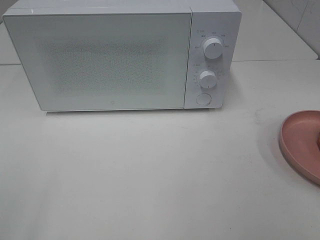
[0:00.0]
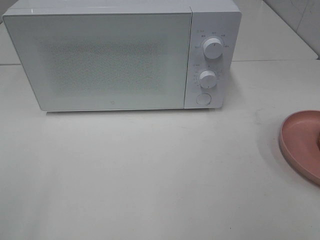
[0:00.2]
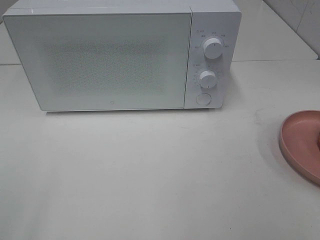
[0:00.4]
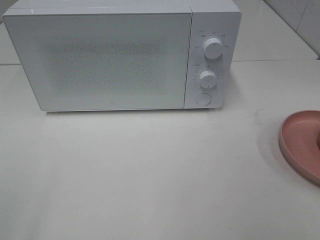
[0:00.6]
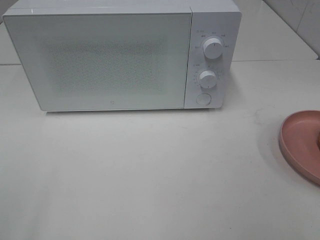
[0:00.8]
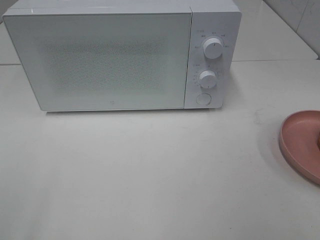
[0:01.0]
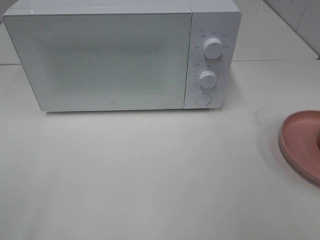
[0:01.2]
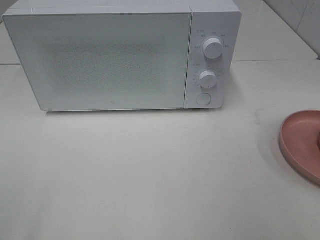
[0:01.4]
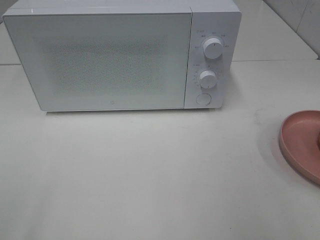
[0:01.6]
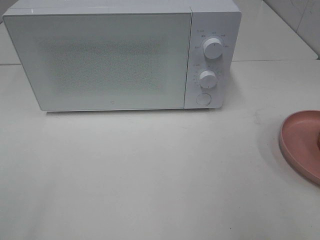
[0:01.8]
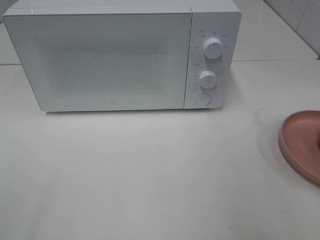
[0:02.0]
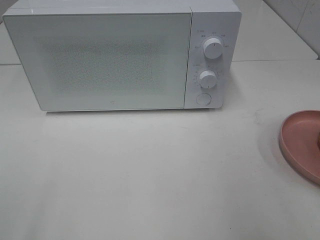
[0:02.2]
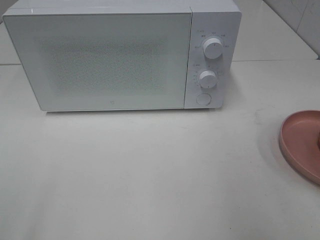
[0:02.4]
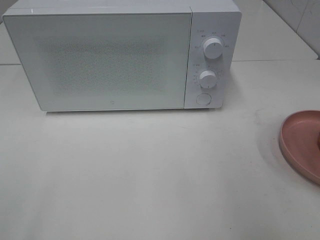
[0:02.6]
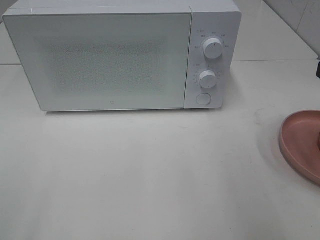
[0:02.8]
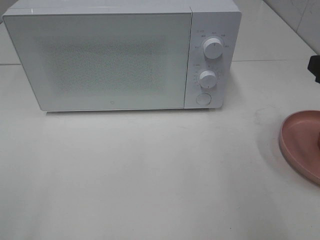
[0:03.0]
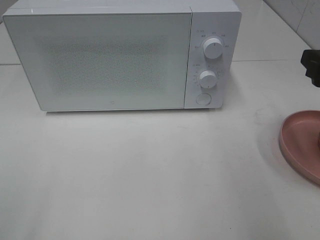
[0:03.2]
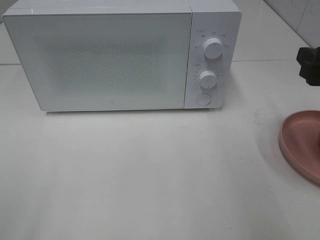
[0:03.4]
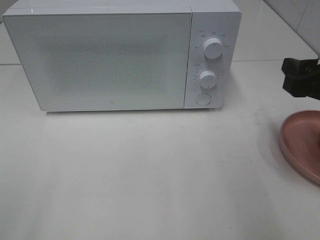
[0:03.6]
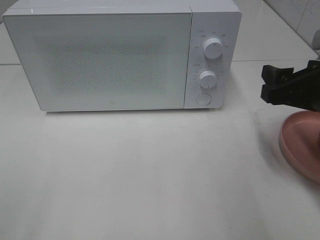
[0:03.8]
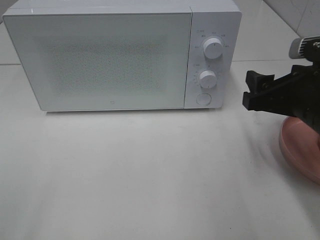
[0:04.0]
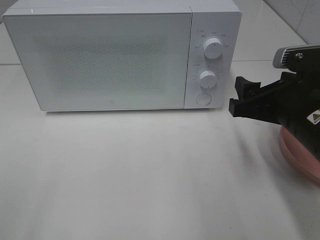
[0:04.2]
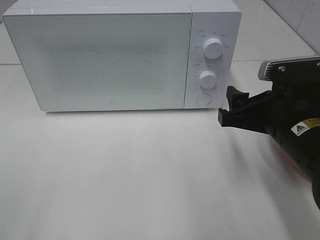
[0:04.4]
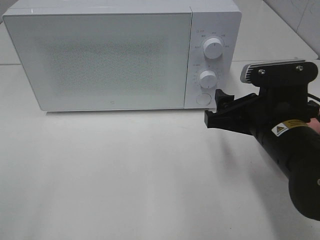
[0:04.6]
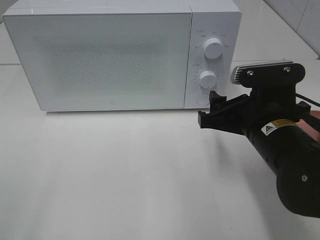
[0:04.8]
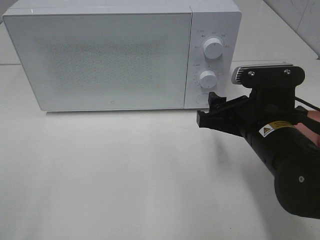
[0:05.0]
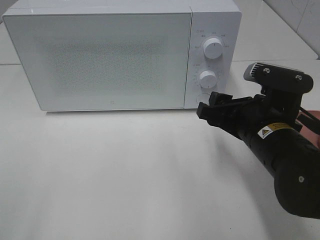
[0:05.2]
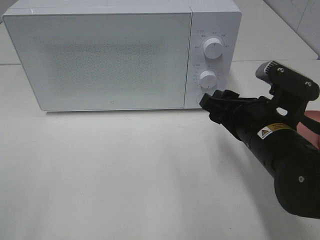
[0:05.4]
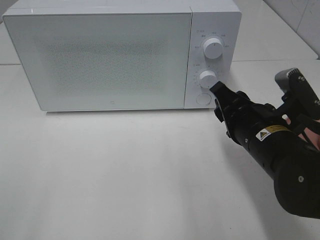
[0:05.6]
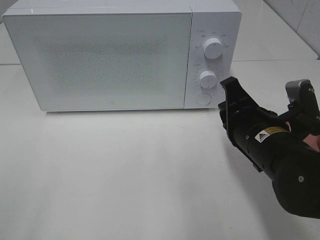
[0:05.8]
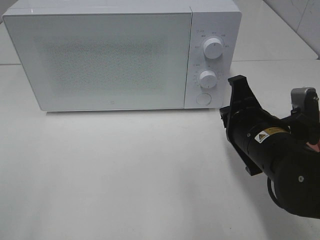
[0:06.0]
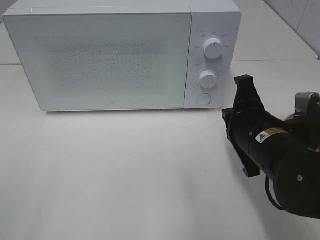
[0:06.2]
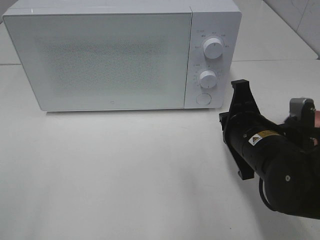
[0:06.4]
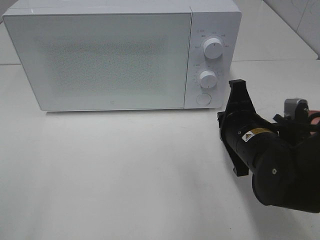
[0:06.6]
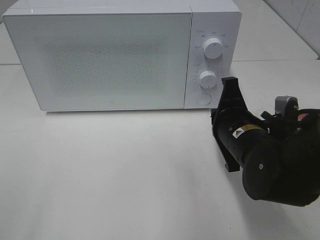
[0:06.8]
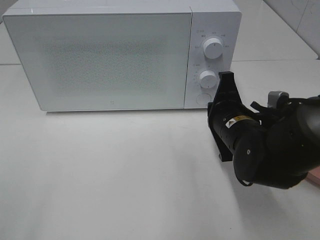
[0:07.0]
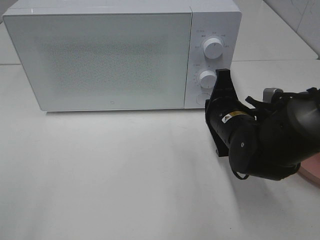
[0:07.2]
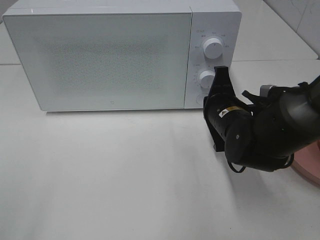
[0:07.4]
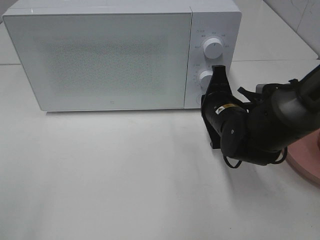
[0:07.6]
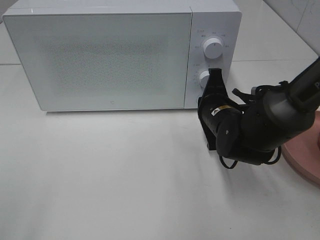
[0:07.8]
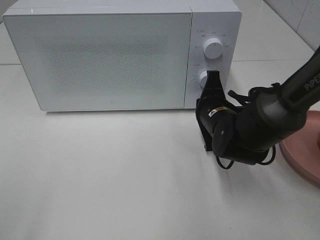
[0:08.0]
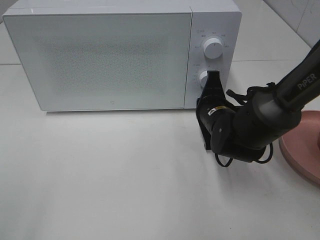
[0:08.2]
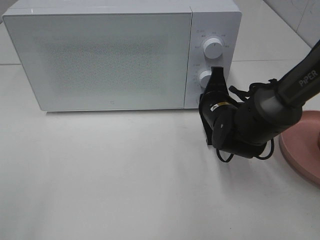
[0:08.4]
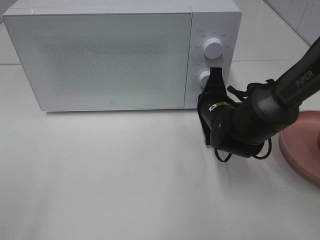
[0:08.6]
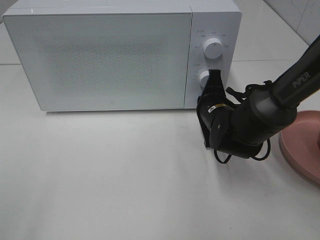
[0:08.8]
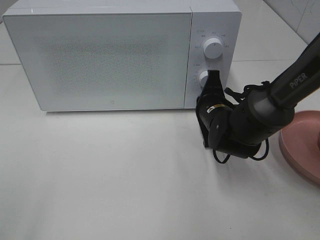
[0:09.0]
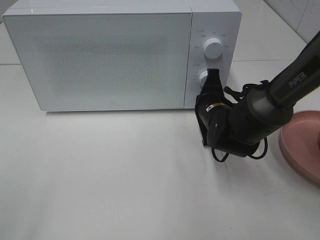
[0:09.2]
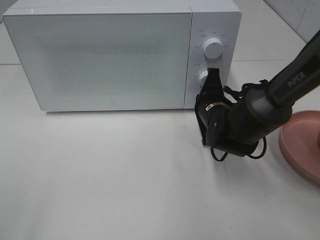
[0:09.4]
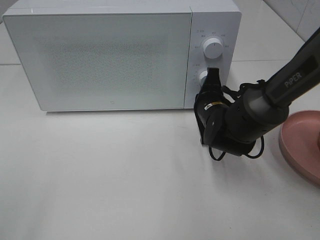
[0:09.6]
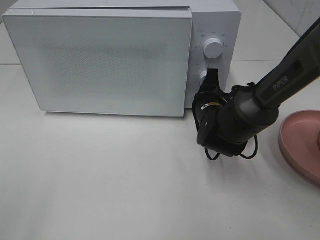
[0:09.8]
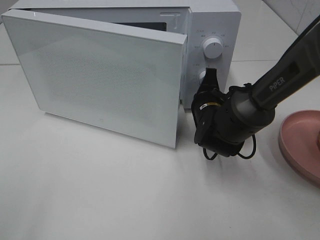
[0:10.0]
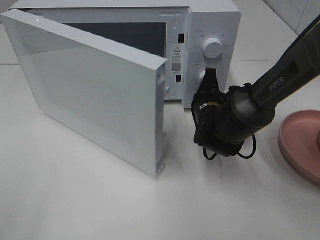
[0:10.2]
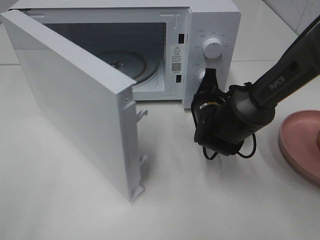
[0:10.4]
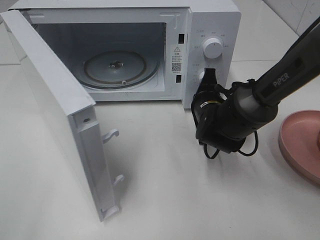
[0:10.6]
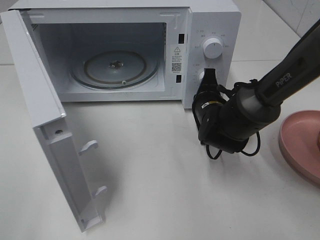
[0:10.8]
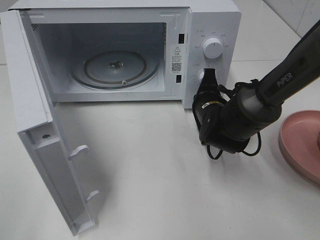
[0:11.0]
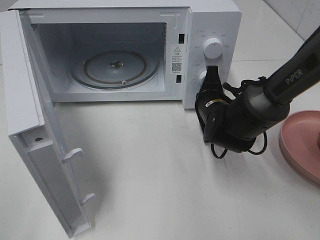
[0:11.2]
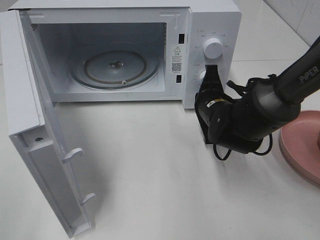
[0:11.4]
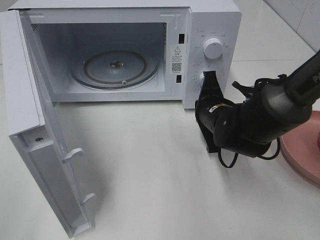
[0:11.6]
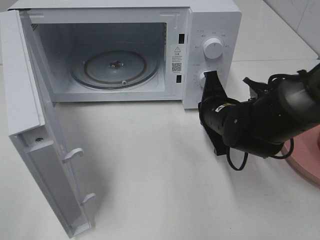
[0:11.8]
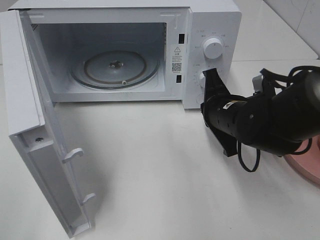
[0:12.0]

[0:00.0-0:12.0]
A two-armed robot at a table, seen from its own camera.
Task of the whole recording: Heat the burger.
Step, 0:00.0 to 0:11.4: Right hand: press the switch.
0:03.0 to 0:04.4: The right gripper goes approximately 15 cm to the left and downward.
0:04.4 to 0:06.0: The right gripper closes up.
0:06.0 to 0:07.6: The right gripper goes roughly 10 cm forward.
0:07.6 to 0:09.0: The grippers stay close to where they were, moving slightly.
0:10.4 to 0:12.0: The right gripper shifts roughly 10 cm backward and upward.

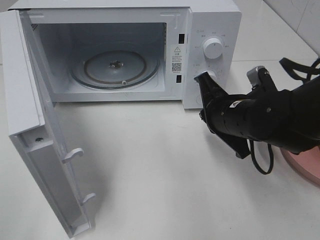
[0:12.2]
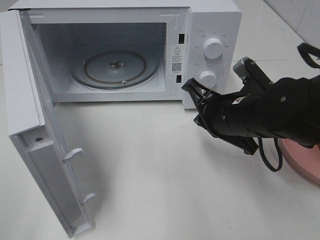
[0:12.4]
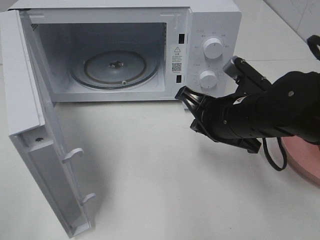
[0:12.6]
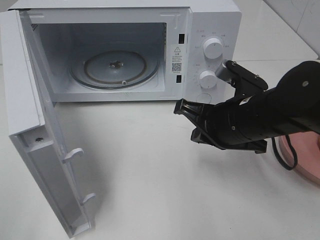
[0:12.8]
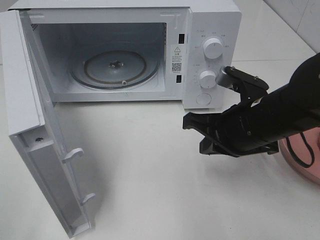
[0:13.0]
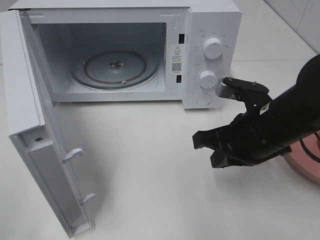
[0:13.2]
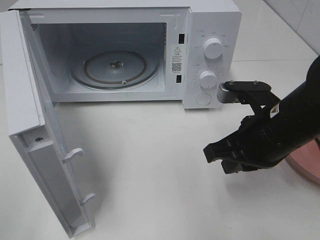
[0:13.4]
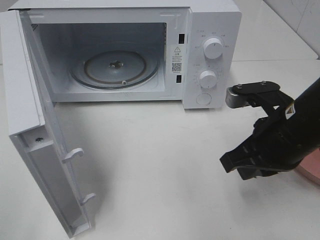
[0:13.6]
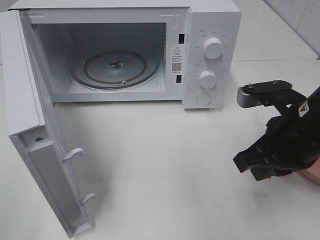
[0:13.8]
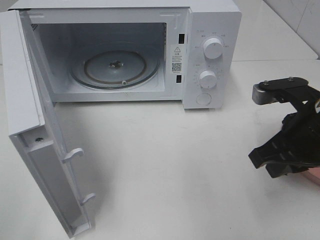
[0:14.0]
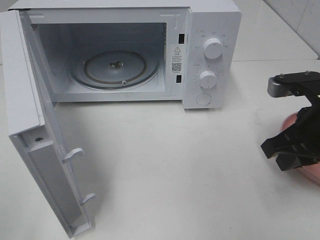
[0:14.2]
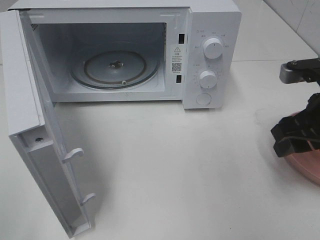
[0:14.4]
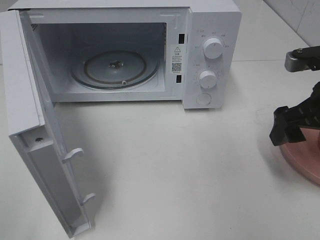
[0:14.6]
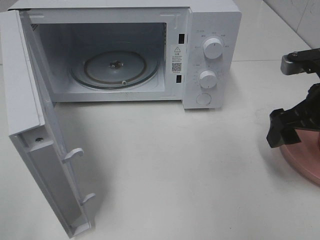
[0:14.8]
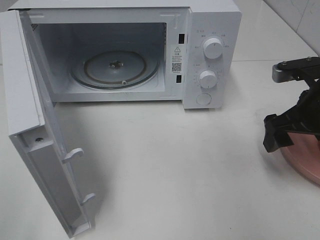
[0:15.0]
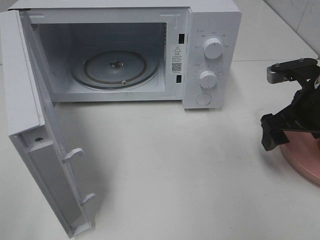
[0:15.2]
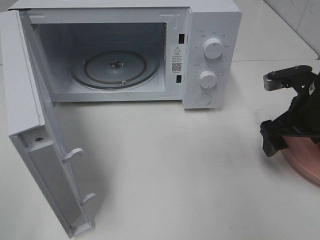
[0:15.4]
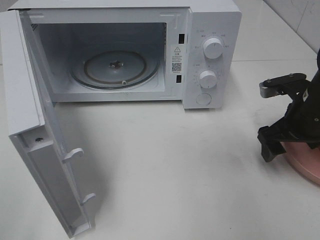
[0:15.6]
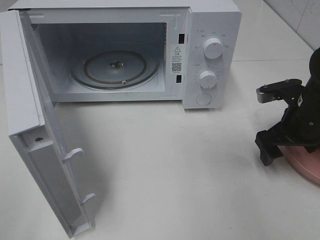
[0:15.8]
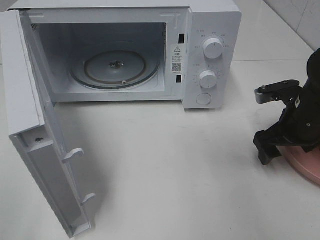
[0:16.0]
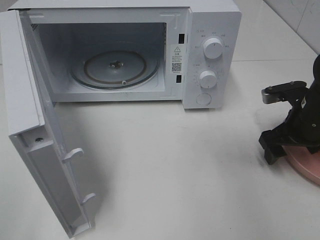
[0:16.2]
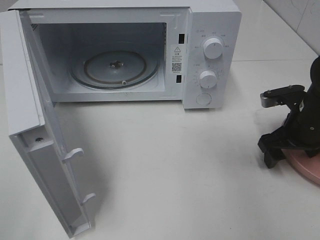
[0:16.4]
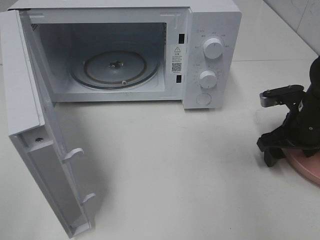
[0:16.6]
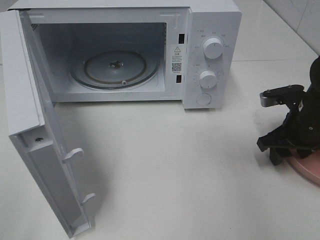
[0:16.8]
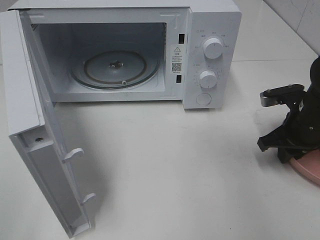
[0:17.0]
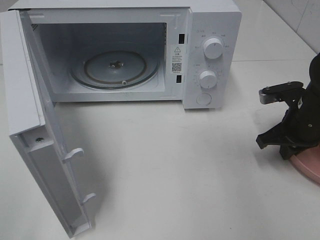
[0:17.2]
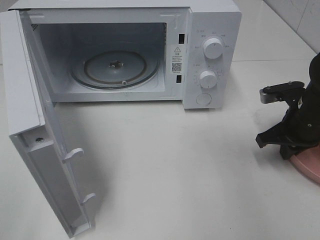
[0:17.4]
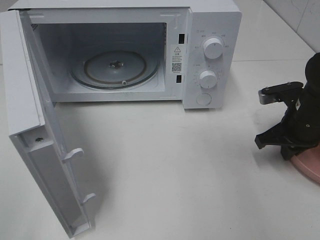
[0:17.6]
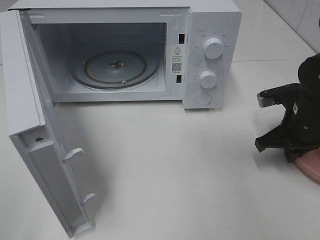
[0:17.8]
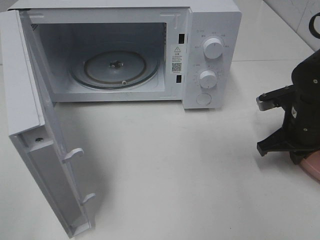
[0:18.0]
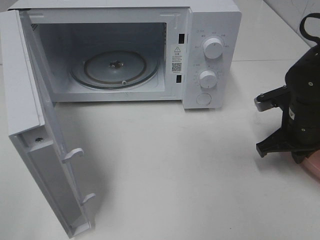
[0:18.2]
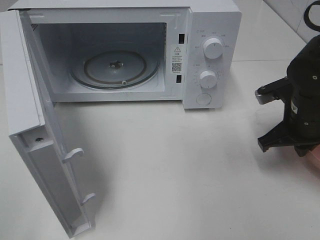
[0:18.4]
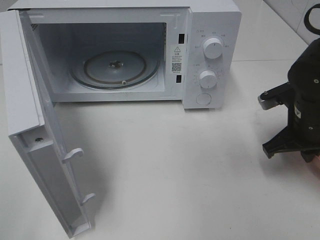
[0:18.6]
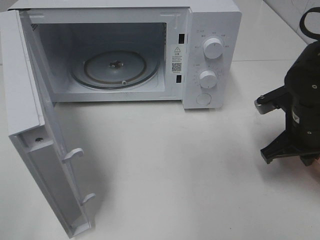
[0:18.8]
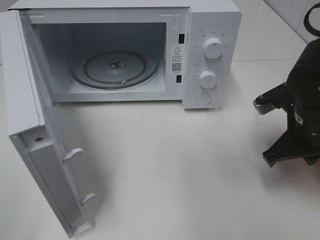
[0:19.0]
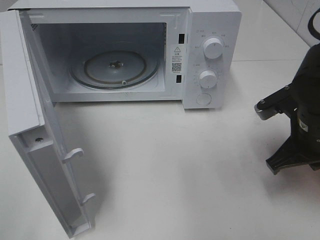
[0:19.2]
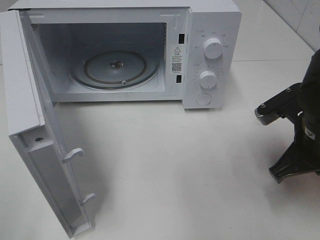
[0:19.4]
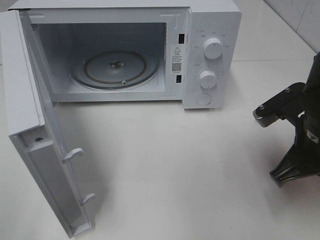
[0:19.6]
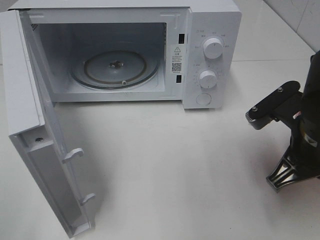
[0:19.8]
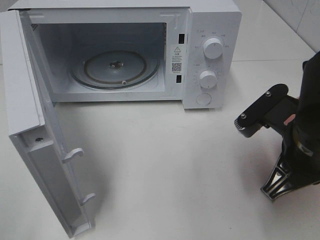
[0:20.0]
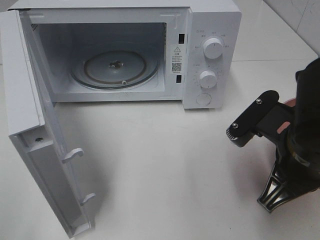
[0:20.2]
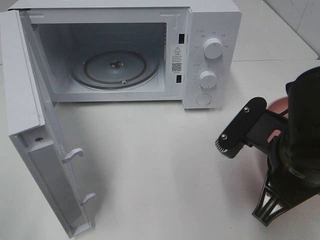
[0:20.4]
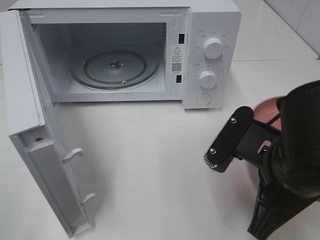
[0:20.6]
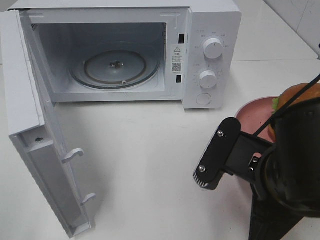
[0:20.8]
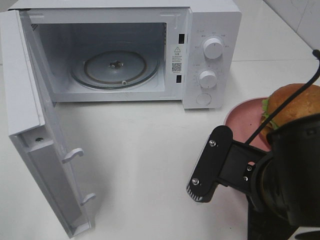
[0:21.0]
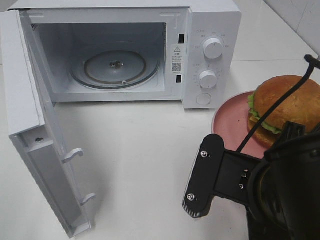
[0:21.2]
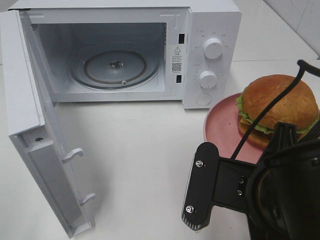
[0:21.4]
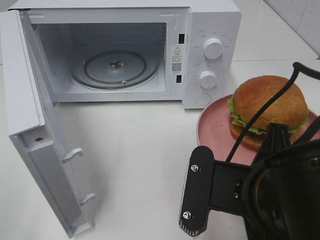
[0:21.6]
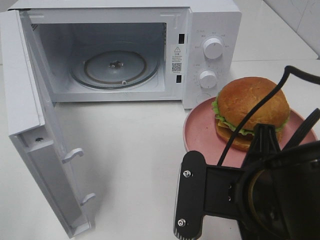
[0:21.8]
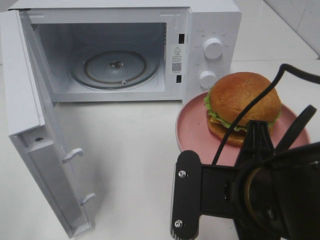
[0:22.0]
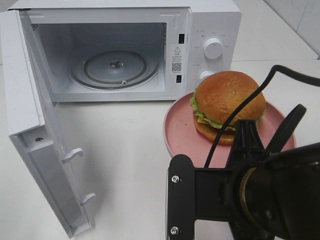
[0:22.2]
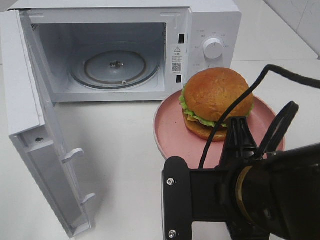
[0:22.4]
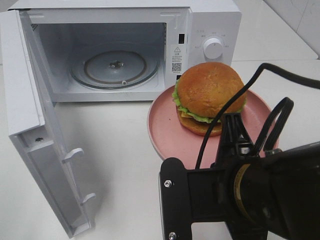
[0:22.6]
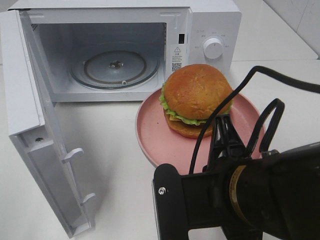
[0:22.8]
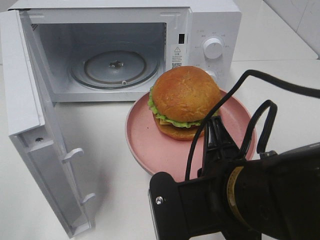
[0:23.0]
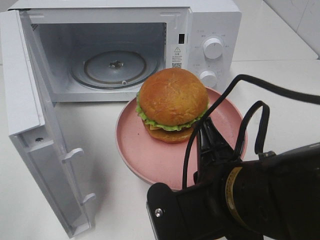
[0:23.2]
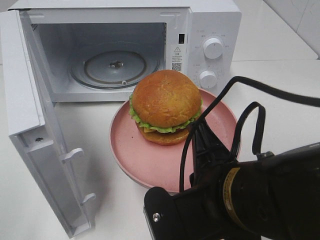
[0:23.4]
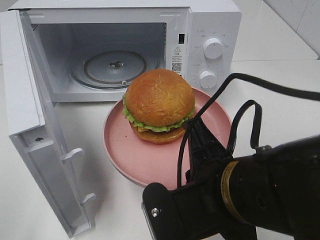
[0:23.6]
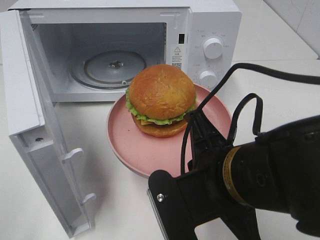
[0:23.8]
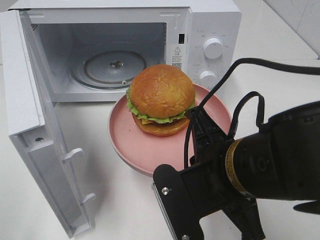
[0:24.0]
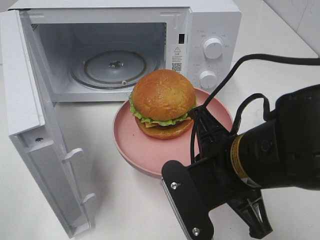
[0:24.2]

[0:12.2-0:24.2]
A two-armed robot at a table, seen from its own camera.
Task of the whole recording: Heat the burger.
Step, 0:12.2 to 0:17.2: Right hand: grab the plate with the hamburger.
0:12.2 to 0:13.8: The right gripper heads backward and to the right, covering roughly 10 cm.
0:13.8 to 0:15.2: The right gripper goes about 10 cm forward and to the right, and opens its fingers.
0:15.2 to 0:16.6: The right gripper shifts roughly 5 cm downward.
0:16.6 to 0:18.2: The right gripper closes its fingers.
0:18.2 to 0:19.8: The right gripper is displaced backward, upward and to the left by about 15 cm.
0:19.8 to 0:21.2: The right gripper shifts some 10 cm backward and to the left.
